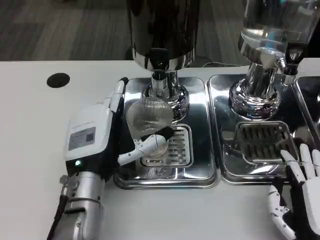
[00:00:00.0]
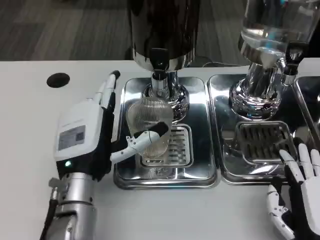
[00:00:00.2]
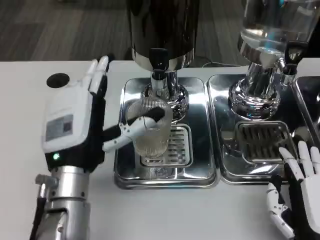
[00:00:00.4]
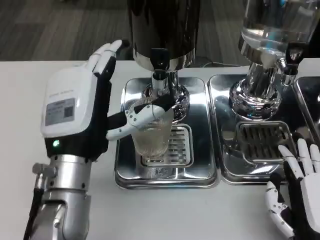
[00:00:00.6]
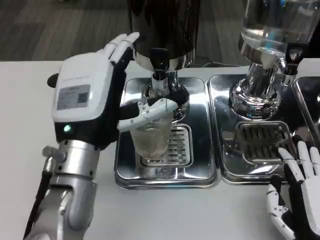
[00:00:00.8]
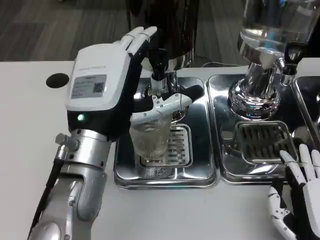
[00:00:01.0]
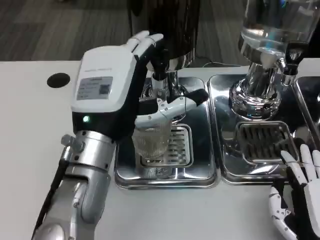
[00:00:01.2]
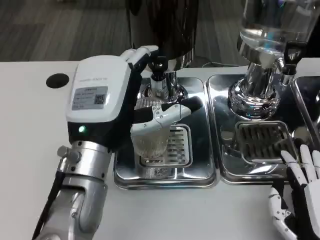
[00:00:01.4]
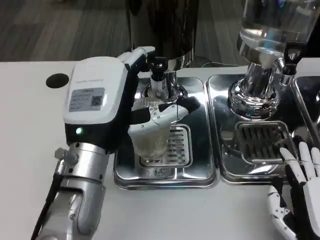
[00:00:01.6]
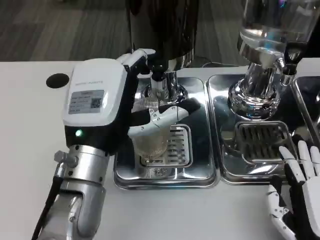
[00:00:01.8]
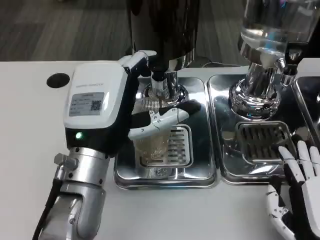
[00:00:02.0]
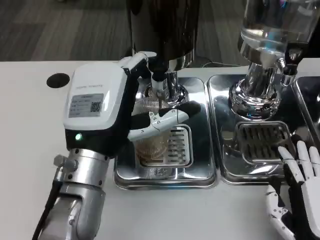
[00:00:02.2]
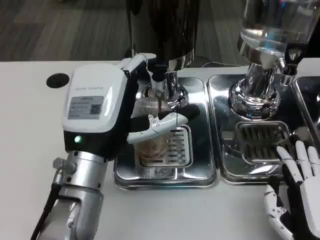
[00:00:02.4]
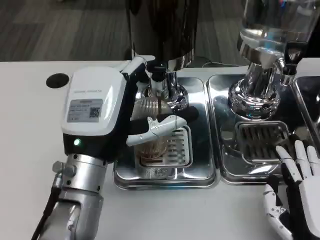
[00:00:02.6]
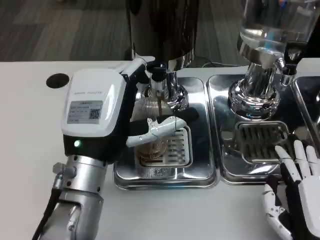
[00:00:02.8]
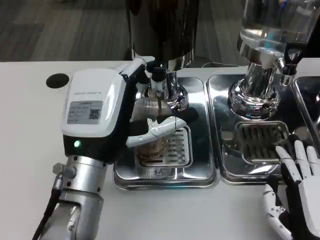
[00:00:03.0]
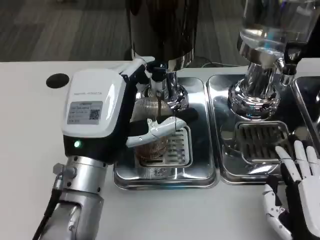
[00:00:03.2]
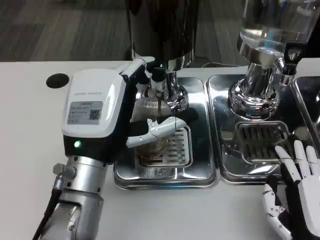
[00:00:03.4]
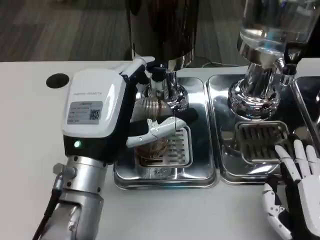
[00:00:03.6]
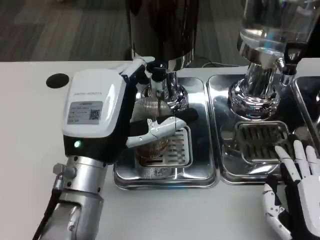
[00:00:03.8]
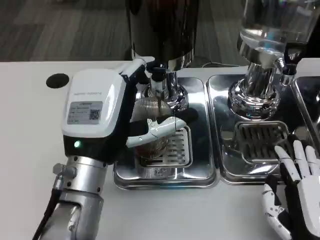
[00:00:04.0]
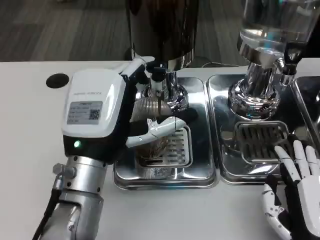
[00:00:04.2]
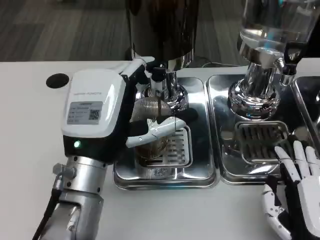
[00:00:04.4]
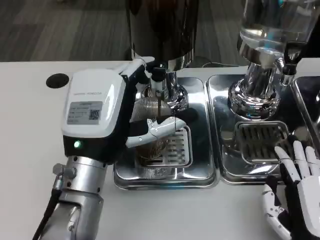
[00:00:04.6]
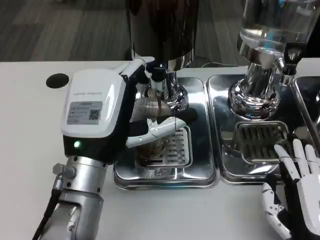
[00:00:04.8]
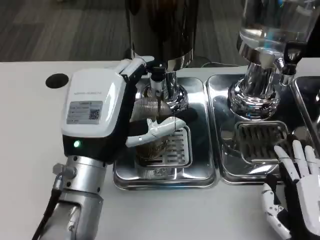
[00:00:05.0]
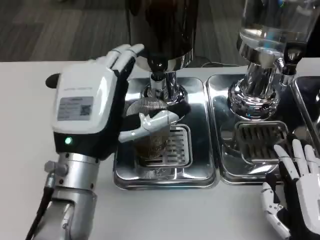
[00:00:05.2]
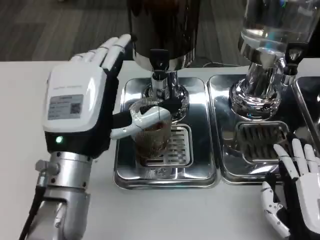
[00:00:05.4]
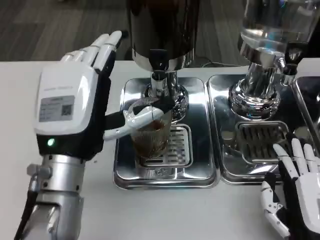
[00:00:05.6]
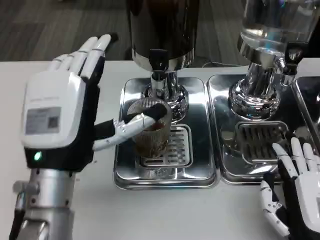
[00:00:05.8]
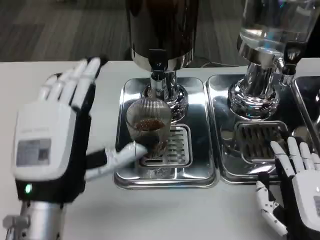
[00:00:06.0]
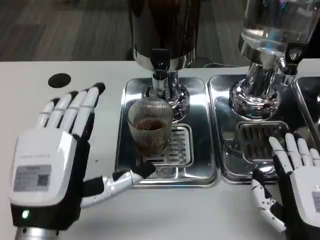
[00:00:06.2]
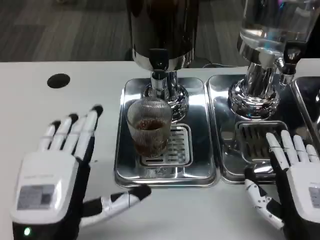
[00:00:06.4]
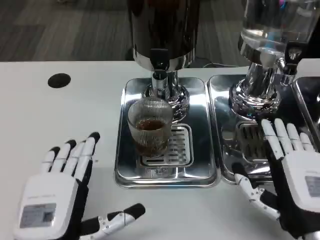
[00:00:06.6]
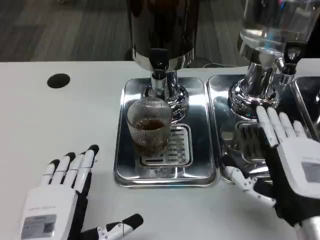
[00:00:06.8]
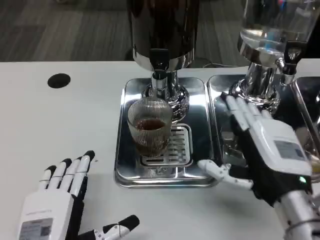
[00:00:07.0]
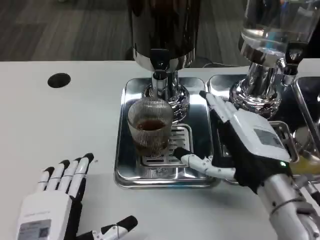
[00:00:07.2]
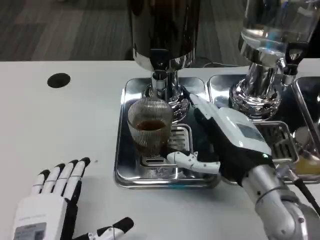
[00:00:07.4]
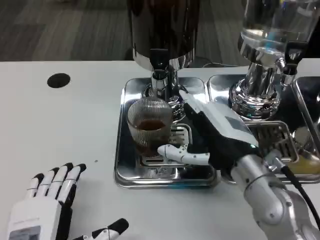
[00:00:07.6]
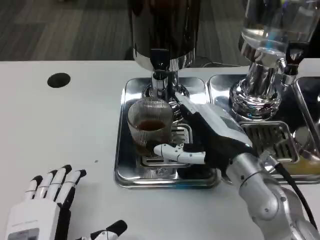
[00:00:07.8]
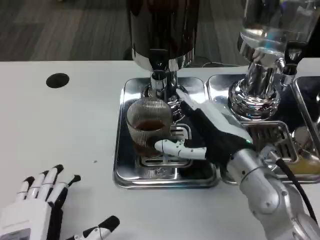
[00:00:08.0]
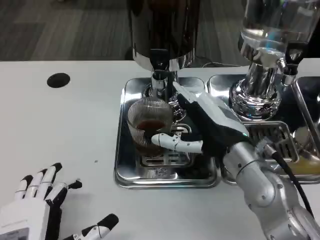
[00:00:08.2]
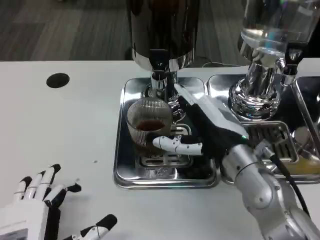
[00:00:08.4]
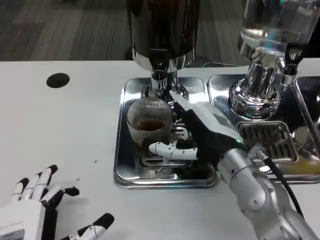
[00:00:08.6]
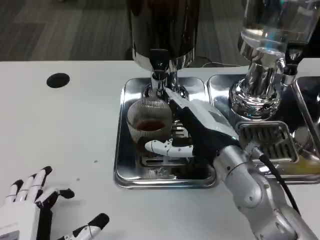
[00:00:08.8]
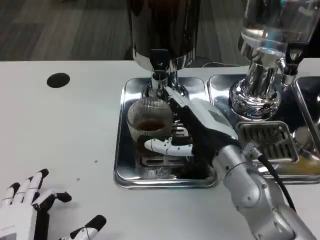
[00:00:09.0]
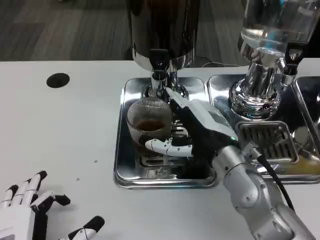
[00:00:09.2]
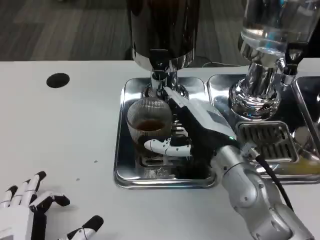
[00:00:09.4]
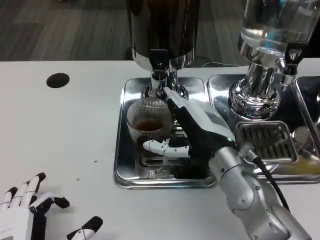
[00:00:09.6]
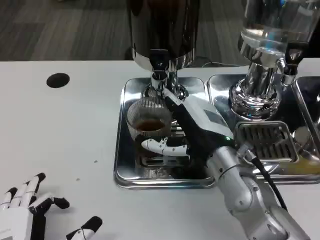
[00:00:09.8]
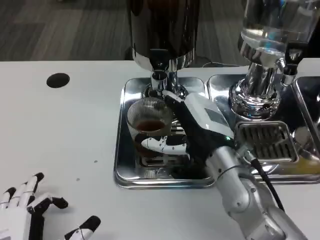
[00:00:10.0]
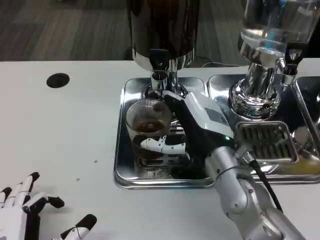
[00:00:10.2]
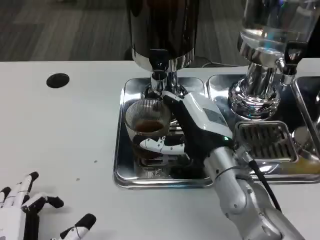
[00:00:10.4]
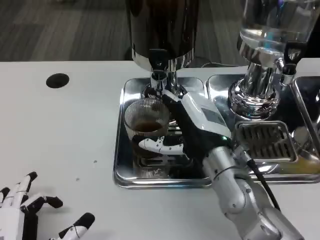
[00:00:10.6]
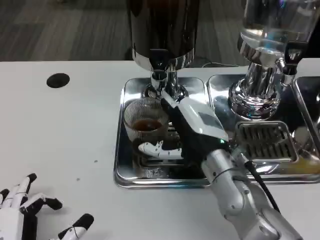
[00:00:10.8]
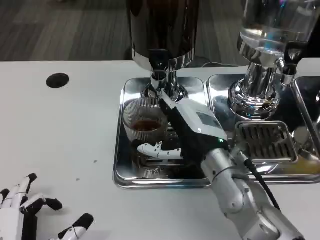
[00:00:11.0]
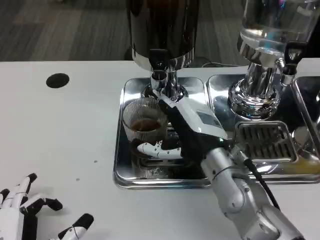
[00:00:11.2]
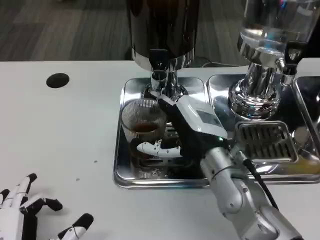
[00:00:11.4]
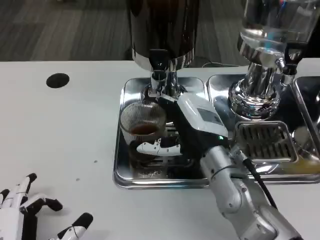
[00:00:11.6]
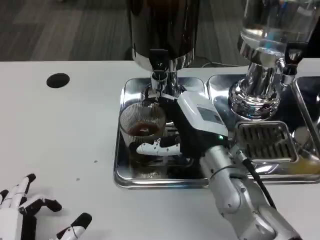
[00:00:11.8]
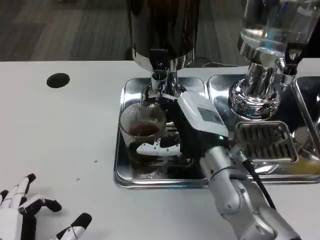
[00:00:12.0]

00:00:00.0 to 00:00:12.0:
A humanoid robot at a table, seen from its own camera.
Task of the whole recording: Grasp the cup under the faucet to collect the drink, then remove the cup.
00:00:00.0 to 00:00:01.6: The left hand goes some 5 cm upward.
00:00:01.6 to 00:00:03.0: The hands stay close to where they were, moving slightly.
00:00:03.0 to 00:00:04.4: The two hands keep their place.
00:00:04.4 to 00:00:06.0: The left hand heads backward, covering some 5 cm.
00:00:06.0 to 00:00:07.6: The left hand travels downward and backward by some 10 cm; the right hand goes about 15 cm forward, upward and to the left.
00:00:07.6 to 00:00:10.4: There are only small adjustments of the hands.
00:00:10.4 to 00:00:12.0: Both hands stay about where they are.

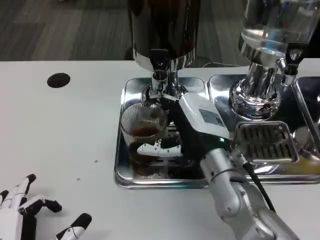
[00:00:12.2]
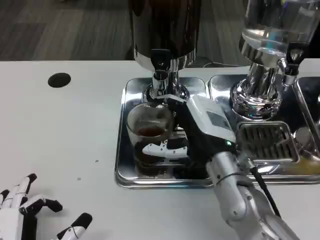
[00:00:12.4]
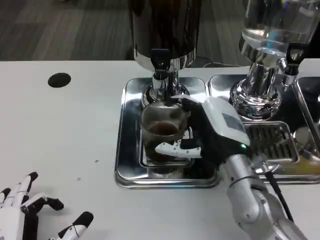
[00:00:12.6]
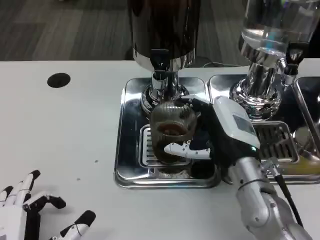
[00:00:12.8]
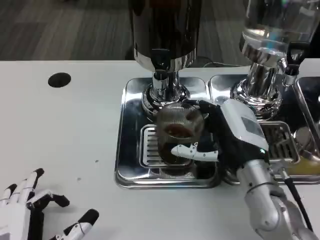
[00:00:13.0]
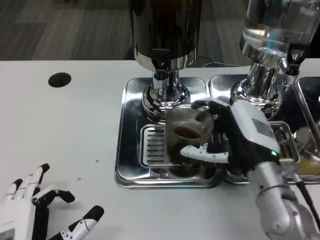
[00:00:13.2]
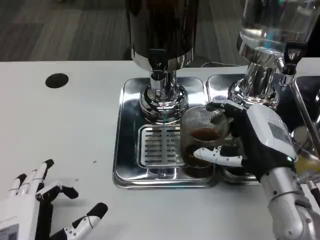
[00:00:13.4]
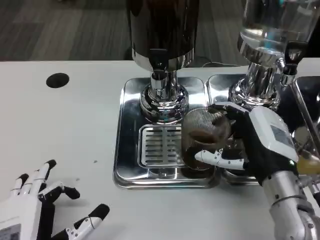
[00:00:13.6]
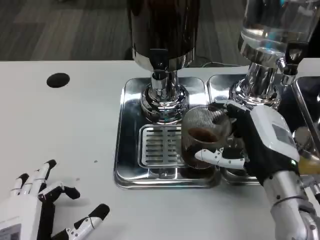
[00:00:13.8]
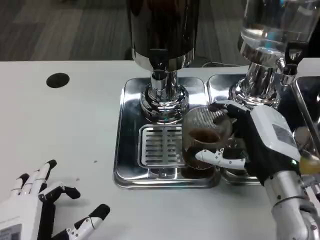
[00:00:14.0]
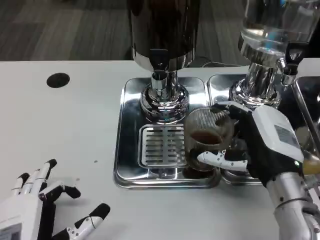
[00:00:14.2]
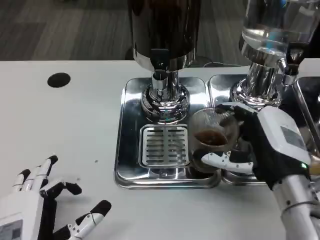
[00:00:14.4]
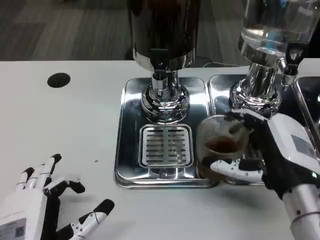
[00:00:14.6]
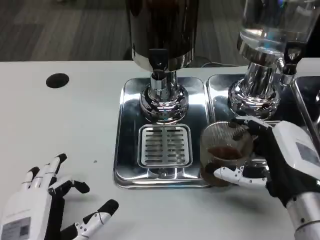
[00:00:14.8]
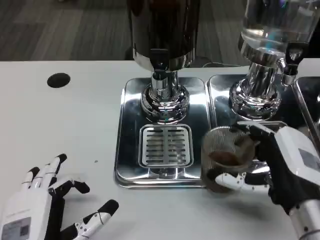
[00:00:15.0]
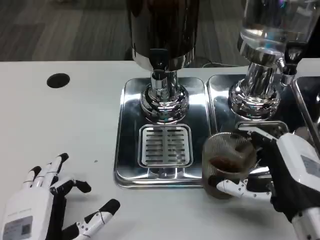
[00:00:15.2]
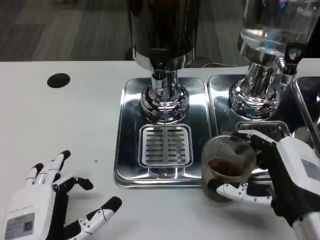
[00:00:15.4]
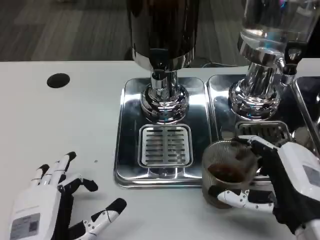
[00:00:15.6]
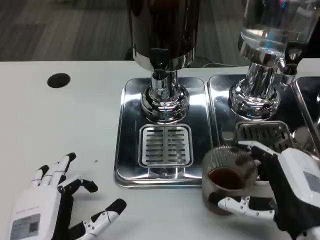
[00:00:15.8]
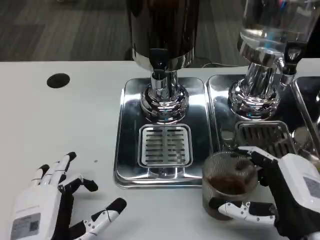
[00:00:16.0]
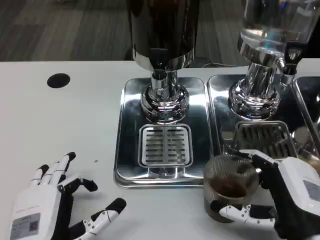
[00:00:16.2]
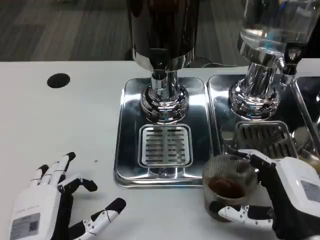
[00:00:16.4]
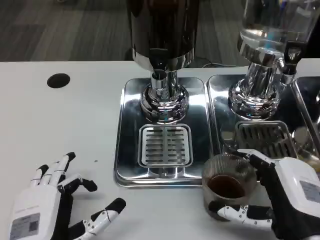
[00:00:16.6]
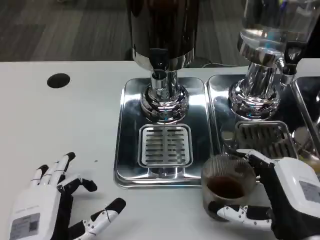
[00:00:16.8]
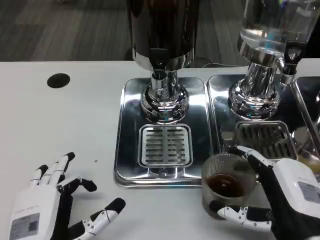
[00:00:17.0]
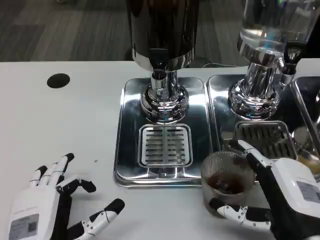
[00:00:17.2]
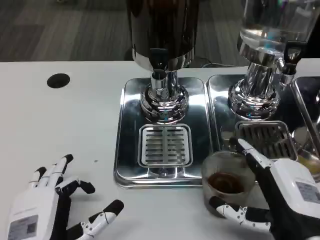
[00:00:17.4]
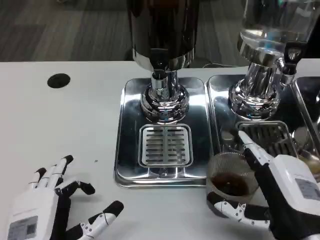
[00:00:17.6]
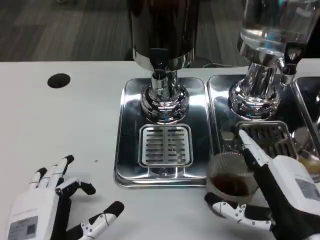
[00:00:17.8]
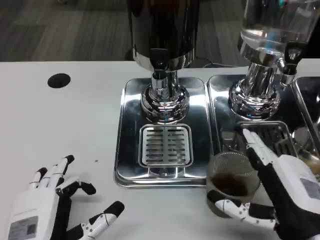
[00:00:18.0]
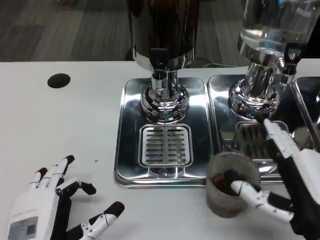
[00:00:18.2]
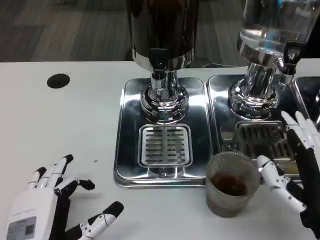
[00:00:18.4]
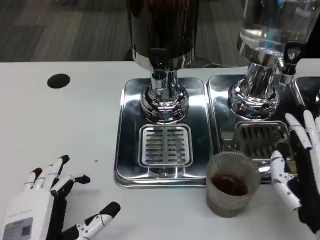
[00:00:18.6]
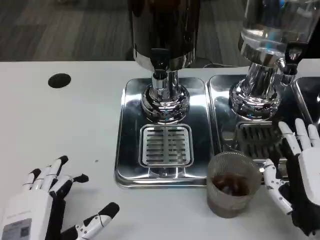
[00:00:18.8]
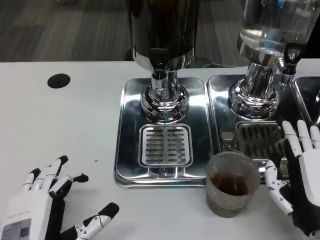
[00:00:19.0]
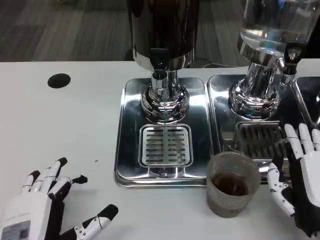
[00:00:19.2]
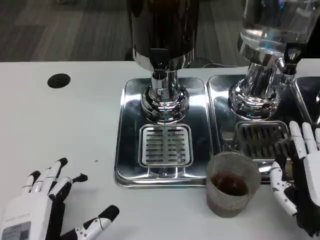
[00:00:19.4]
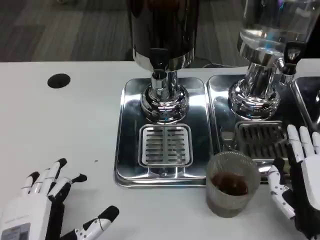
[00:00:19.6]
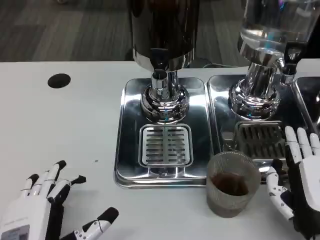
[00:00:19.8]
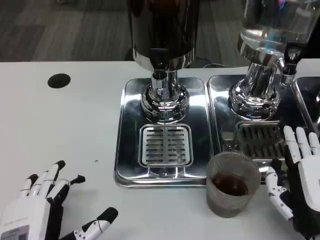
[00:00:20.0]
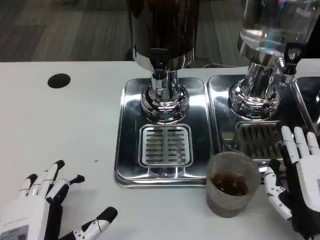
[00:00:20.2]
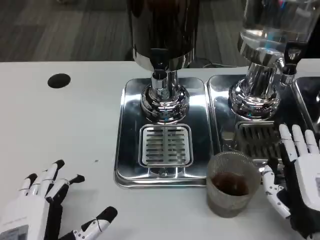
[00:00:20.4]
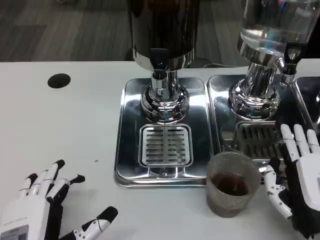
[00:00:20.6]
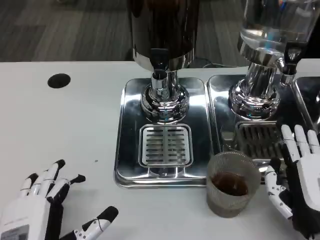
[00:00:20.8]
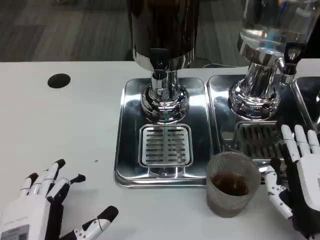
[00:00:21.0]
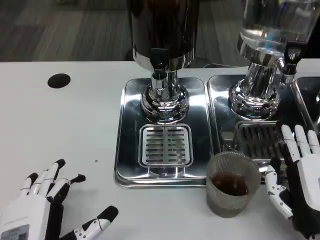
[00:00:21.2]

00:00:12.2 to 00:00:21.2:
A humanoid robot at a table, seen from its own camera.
Task of the whole recording: Grasp the cup under the faucet to collect the drink, then remove the cup.
00:00:12.2 to 00:00:13.8: The right hand shifts roughly 5 cm to the right.
00:00:13.8 to 00:00:15.2: The right hand shifts some 5 cm backward.
00:00:15.2 to 00:00:18.2: The hands move only a little.
00:00:19.8 to 00:00:21.2: The two hands keep their place.
